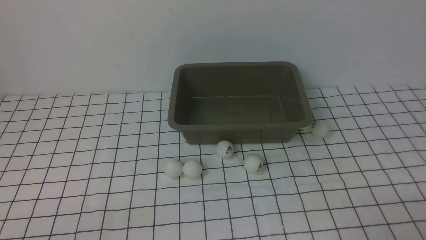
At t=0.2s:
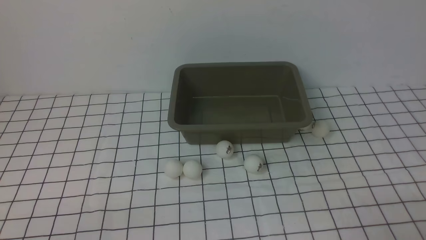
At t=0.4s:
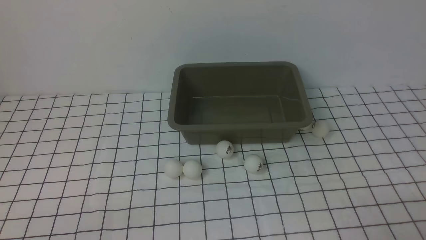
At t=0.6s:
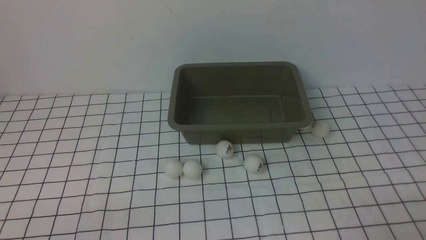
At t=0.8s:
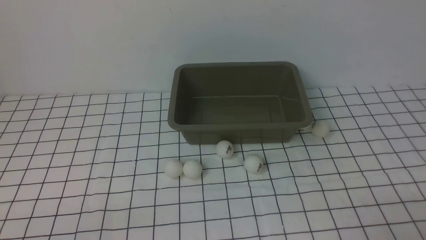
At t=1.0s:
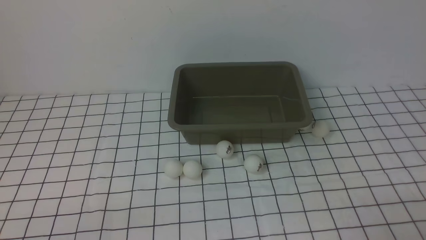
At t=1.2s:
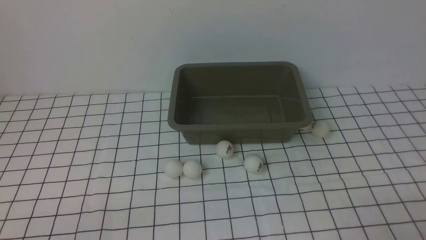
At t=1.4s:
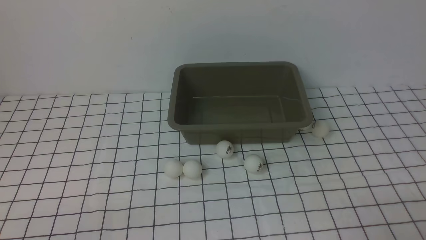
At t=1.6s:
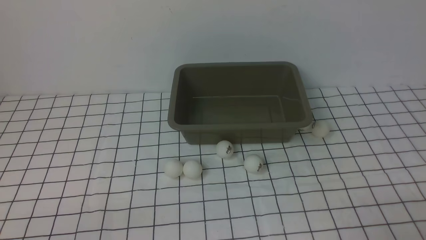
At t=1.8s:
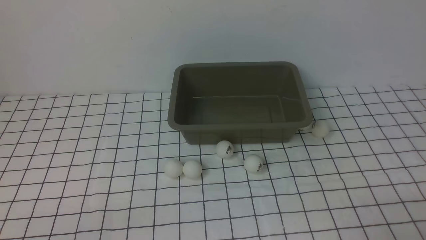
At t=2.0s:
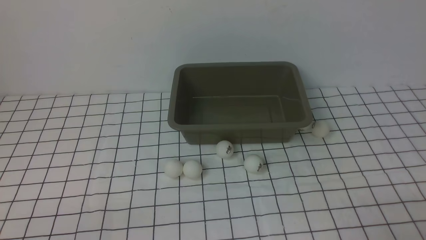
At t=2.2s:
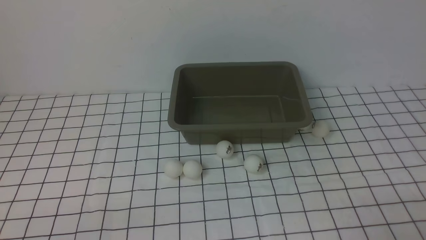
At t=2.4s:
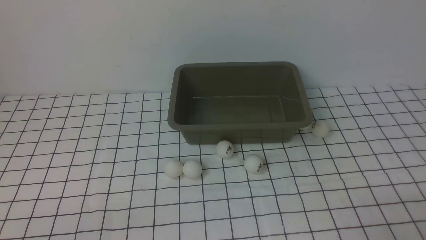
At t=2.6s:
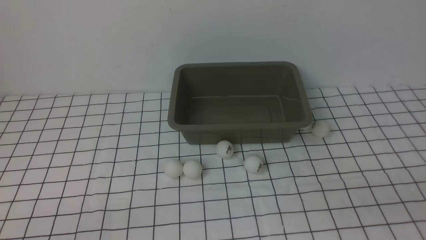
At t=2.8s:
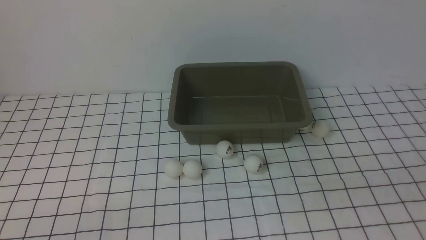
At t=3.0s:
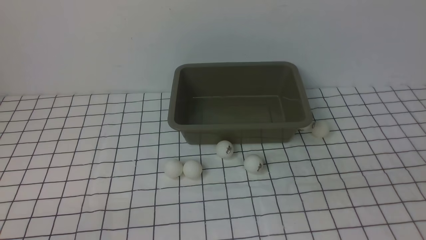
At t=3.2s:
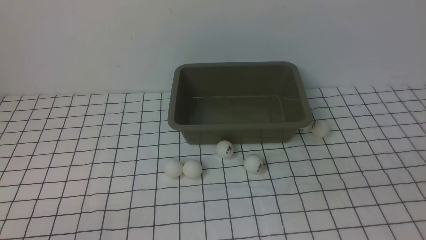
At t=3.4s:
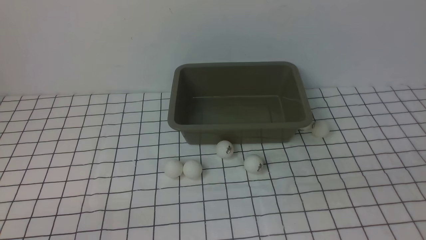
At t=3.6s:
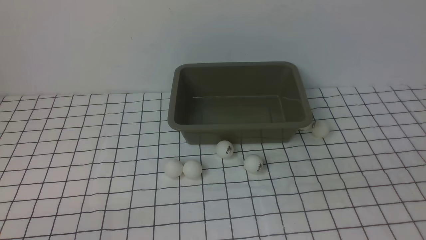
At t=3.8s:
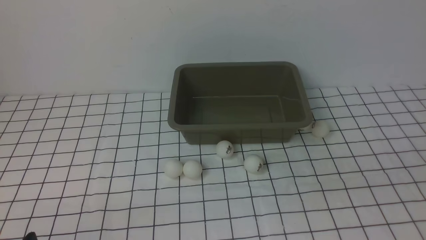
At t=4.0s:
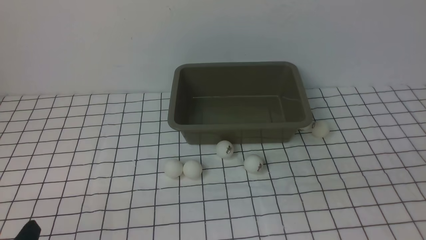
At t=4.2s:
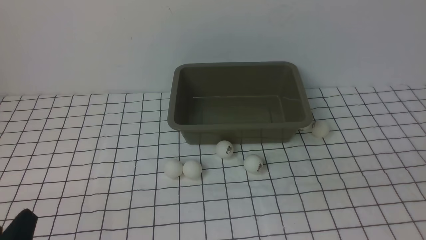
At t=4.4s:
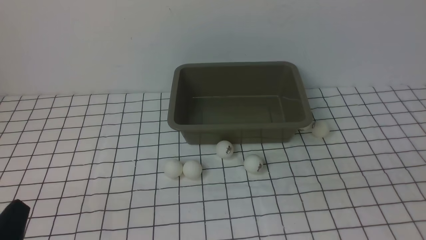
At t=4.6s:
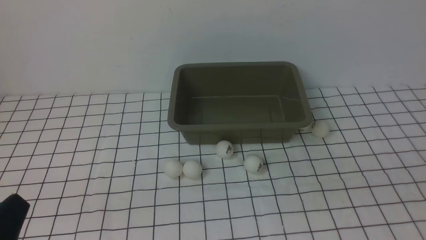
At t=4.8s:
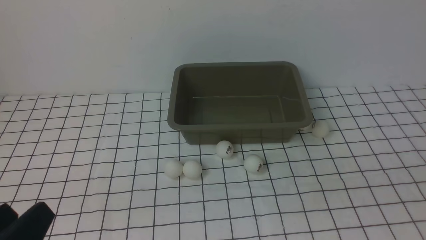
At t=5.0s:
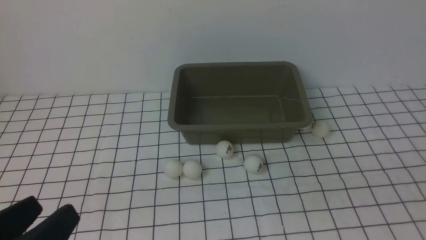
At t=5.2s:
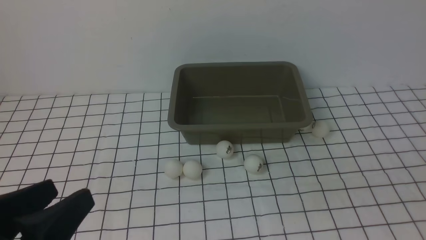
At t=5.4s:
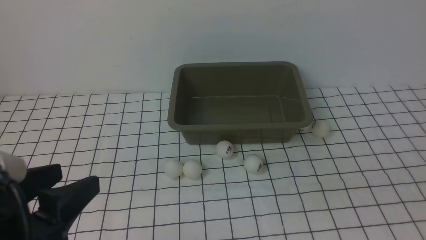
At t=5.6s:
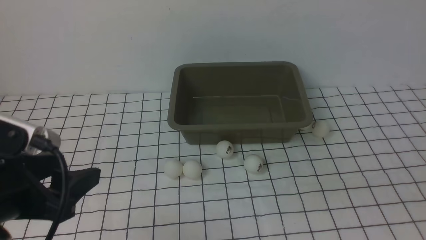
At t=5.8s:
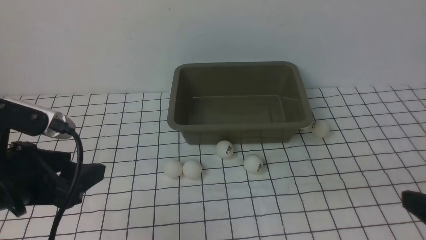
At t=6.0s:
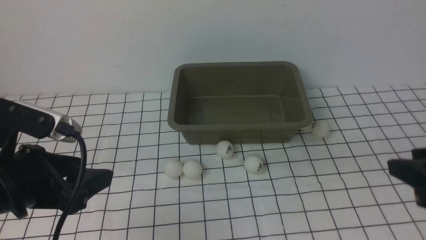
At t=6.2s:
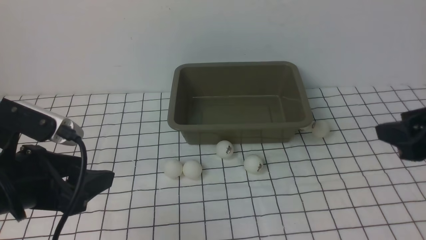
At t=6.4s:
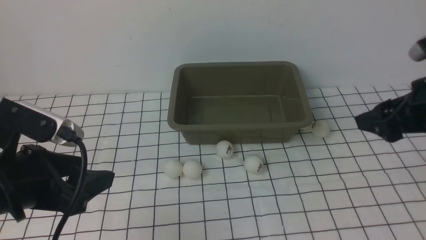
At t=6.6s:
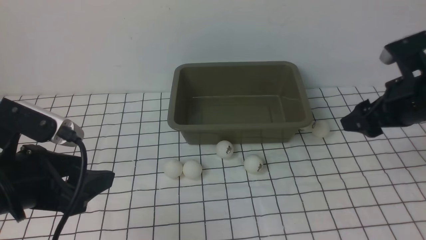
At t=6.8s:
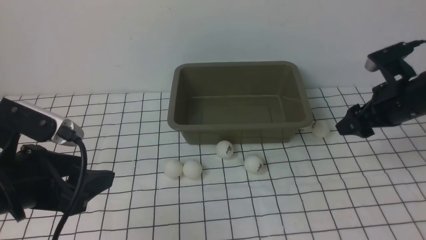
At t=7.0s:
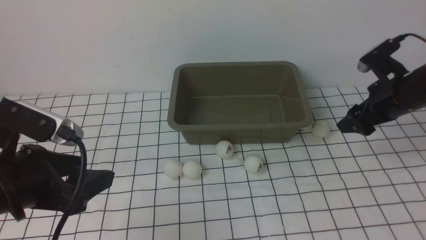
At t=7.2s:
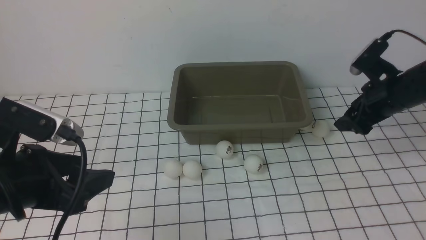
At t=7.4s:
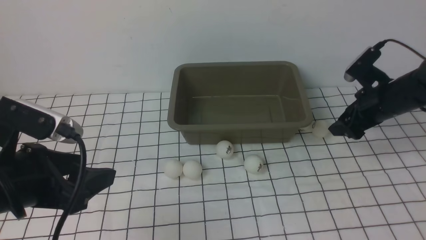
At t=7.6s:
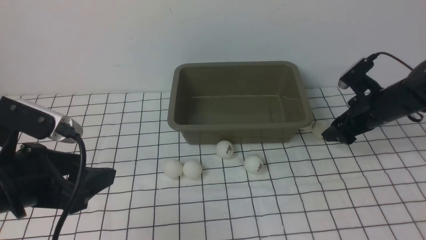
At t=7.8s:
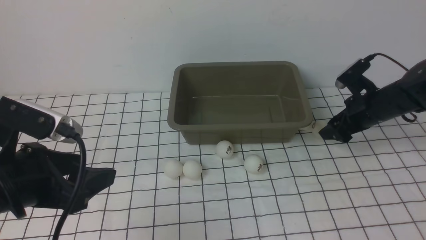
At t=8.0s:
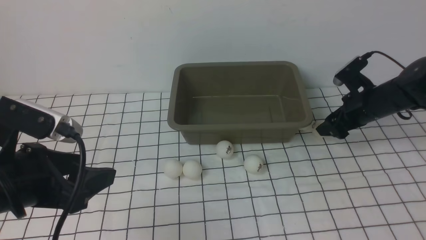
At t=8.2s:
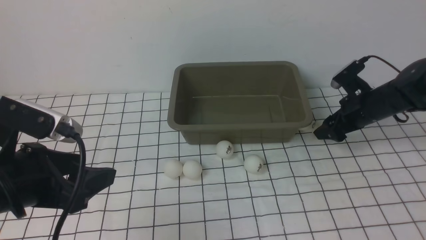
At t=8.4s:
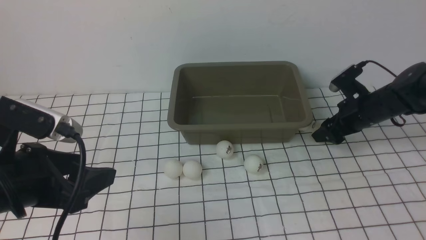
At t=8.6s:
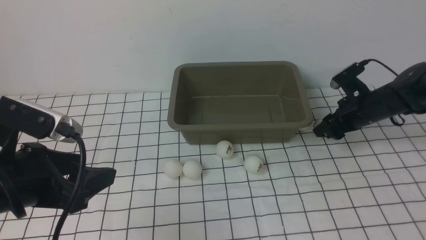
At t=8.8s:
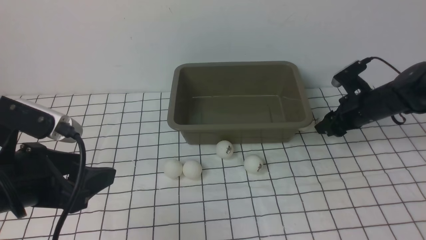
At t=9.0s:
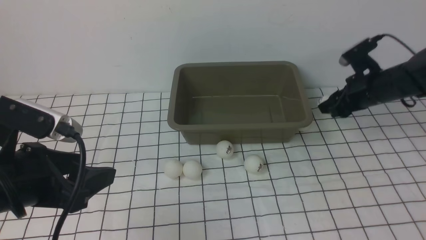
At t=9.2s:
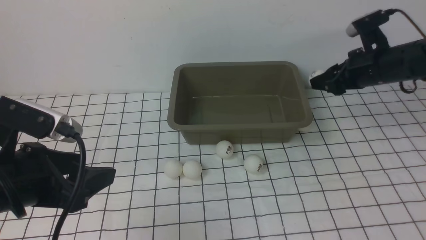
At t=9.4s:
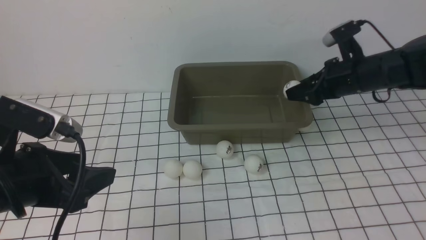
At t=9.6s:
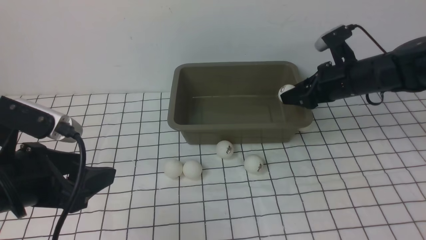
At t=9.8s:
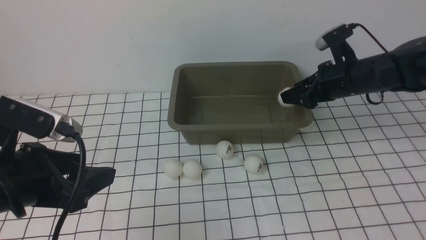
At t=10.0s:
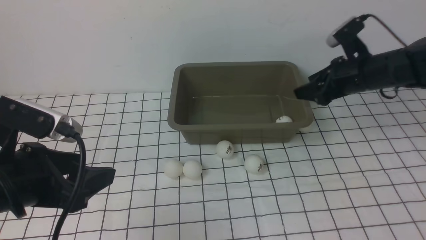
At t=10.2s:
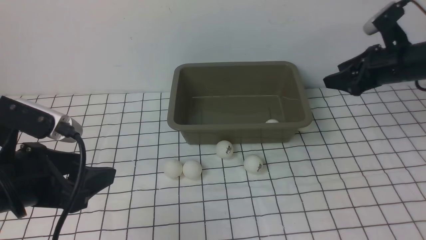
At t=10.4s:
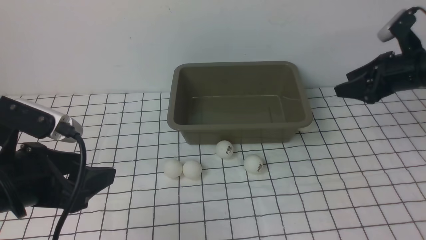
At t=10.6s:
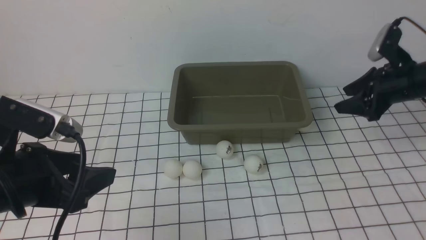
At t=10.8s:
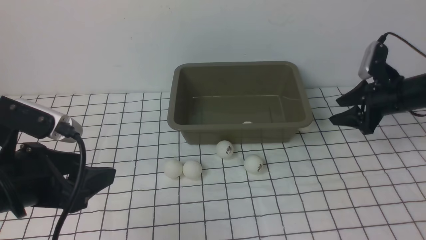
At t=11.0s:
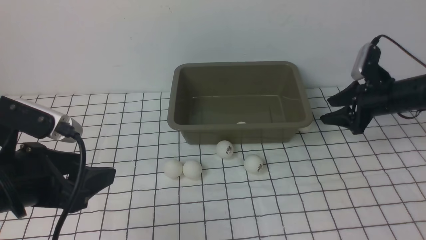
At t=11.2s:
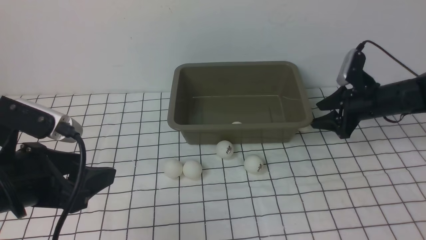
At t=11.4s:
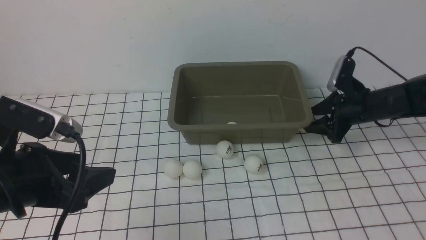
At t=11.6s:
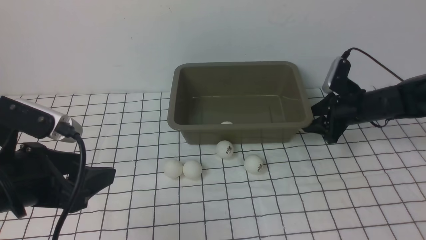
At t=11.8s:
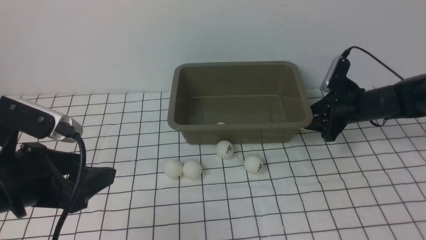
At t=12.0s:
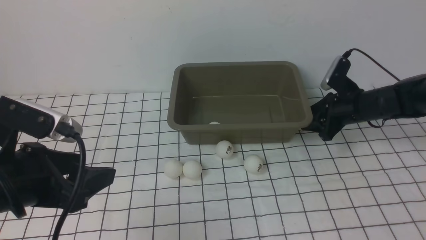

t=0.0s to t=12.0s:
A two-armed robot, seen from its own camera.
Step, t=0.0s to t=9.0s: use the right arm to clamp the table tennis ball closest to it.
Step, t=9.4s to t=10.0s: use the right arm to put the table tennis ball into the box.
t=0.0s to t=1.6s: The two grippers keep their place.
t=4.4s to t=6.0s: The right gripper moves forward, roughly 15 cm, while the left gripper travels forward and upward by about 15 cm.
t=6.0s to t=7.6s: The right gripper goes some 30 cm forward and downward, and opens up.
t=7.6s to t=9.0s: The right gripper closes up.
t=9.0s to t=10.4s: The right gripper changes place by some 5 cm, and opens up.
t=10.4s to t=12.0s: The right gripper heads downward, covering roughly 10 cm.

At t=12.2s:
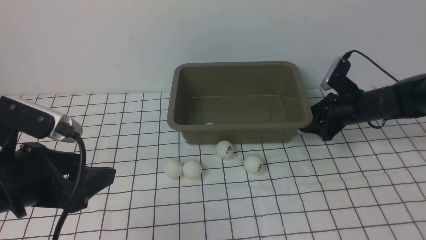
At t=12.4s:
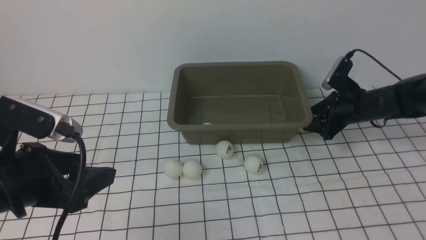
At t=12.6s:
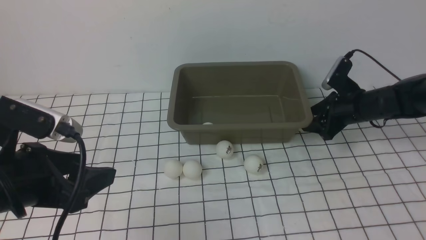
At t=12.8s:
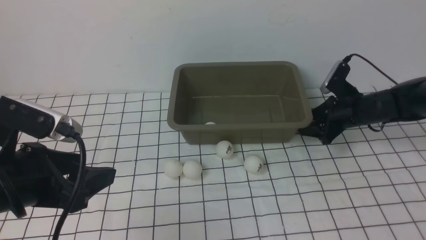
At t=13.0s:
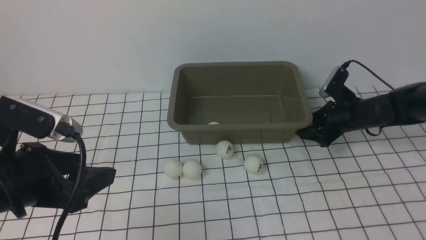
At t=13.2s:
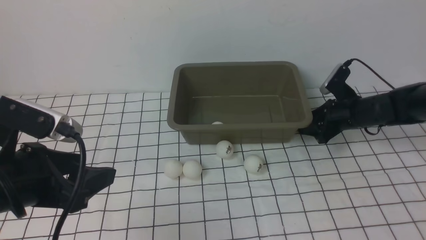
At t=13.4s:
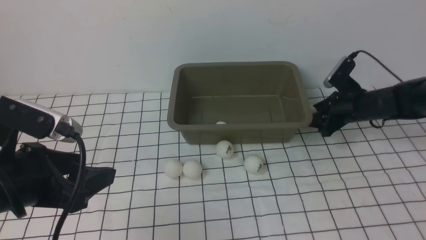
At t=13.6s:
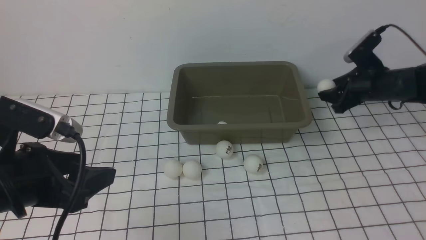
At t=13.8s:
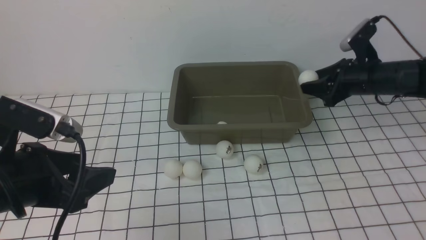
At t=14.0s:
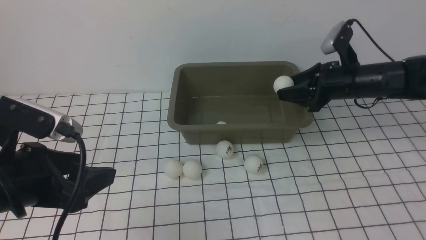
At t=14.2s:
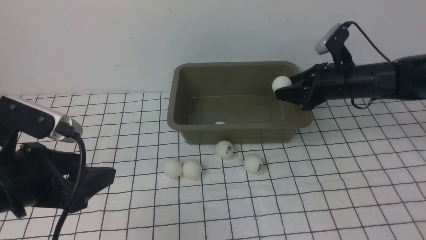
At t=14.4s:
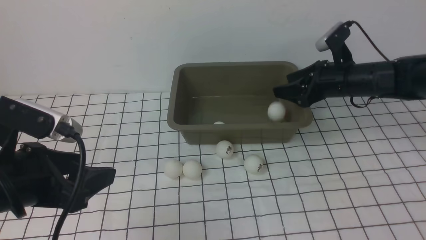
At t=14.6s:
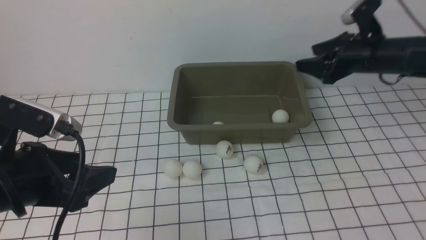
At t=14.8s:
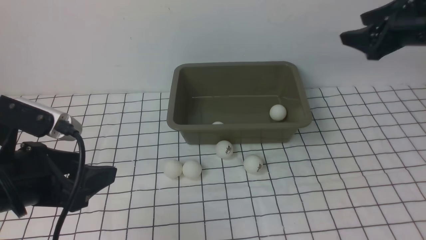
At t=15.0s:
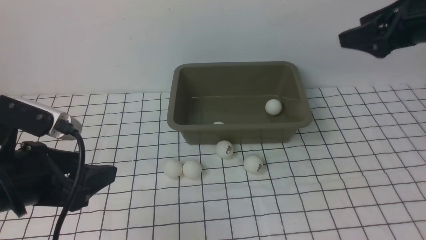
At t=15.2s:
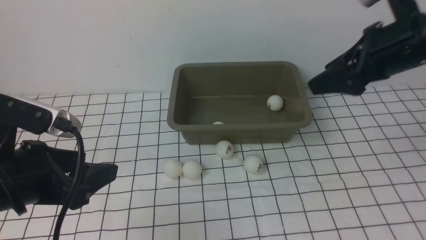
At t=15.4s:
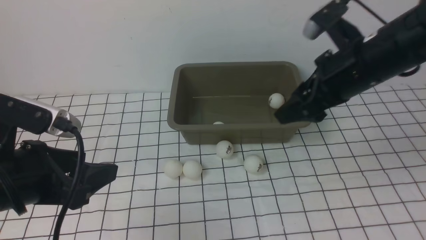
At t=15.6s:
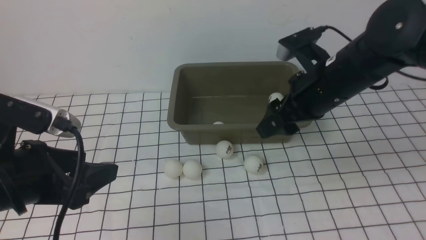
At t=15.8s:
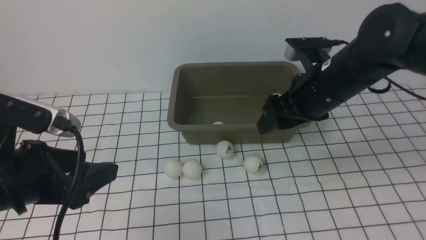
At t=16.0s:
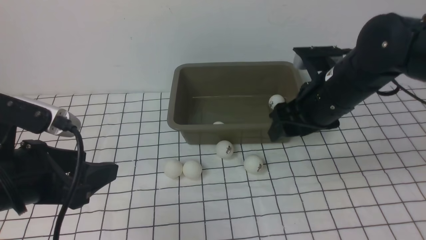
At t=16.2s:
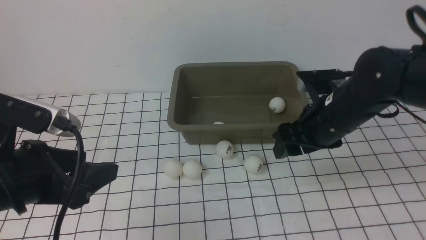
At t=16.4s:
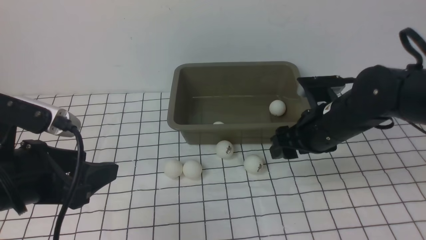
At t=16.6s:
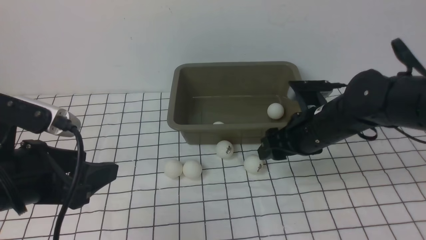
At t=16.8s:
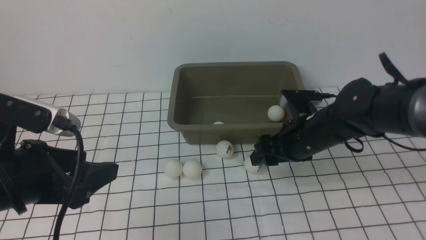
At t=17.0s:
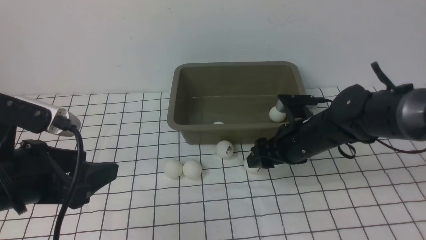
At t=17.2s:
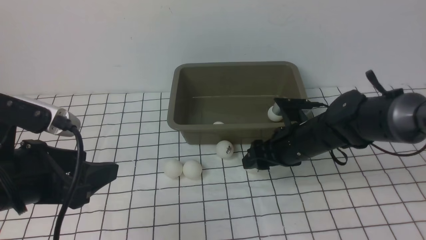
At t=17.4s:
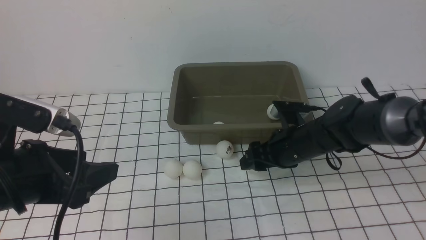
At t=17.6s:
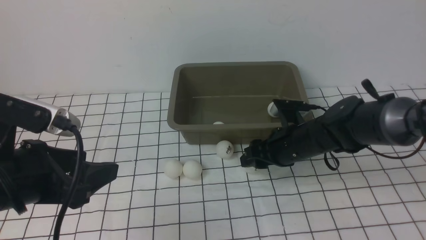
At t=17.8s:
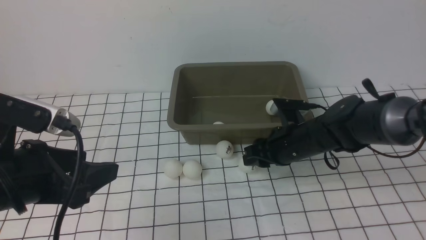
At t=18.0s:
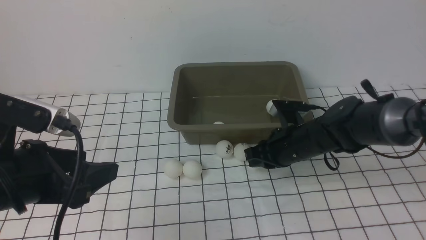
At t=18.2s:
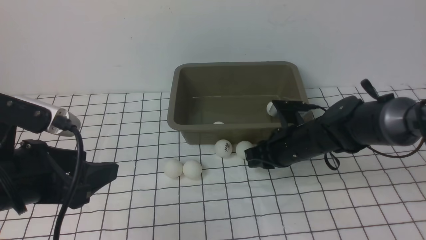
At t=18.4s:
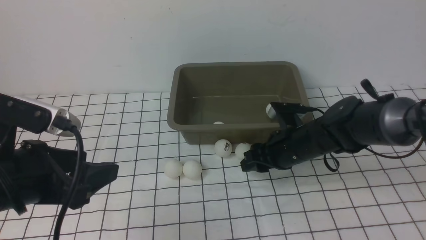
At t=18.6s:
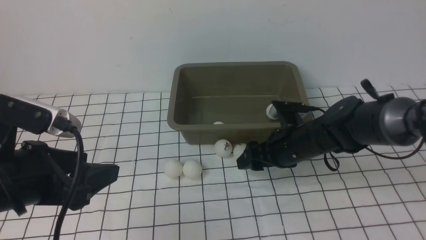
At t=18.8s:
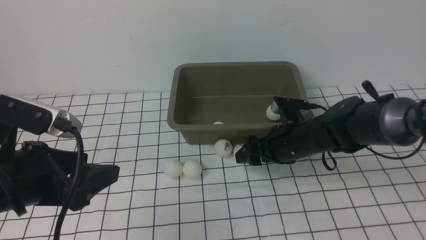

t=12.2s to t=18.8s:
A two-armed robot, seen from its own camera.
Step, t=13.8s to t=14.4s: use the right arm to put the table tennis ball into the box.
t=12.2s to t=13.8s: The right gripper goes roughly 5 cm upward.
t=13.8s to t=15.4s: The right gripper shifts roughly 20 cm upward, backward and to the left, and opens.
t=15.4s to t=17.2s: The right gripper goes about 15 cm downward.
t=17.2s to t=18.8s: The right gripper closes, then opens again.
